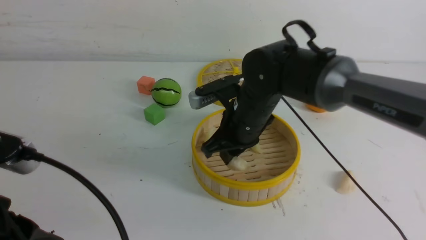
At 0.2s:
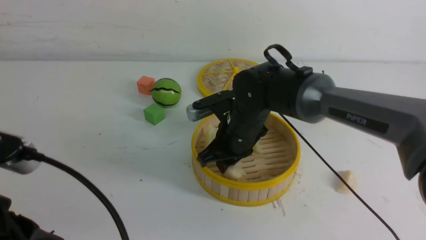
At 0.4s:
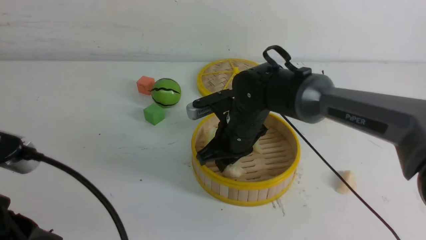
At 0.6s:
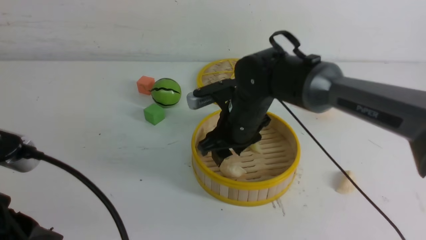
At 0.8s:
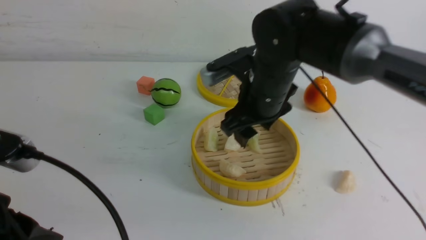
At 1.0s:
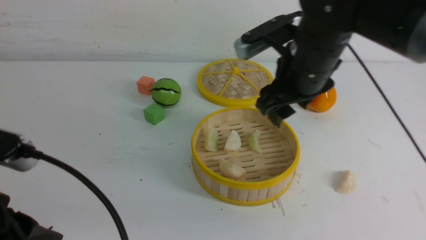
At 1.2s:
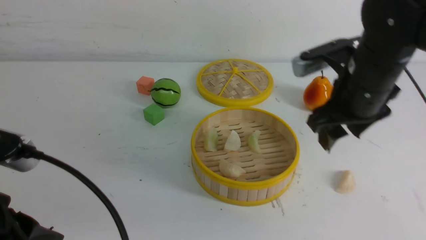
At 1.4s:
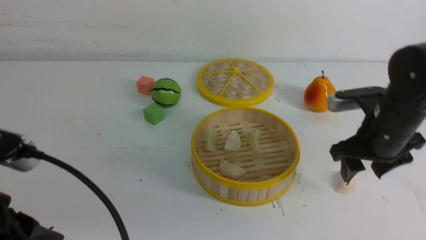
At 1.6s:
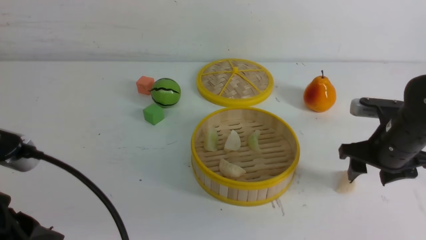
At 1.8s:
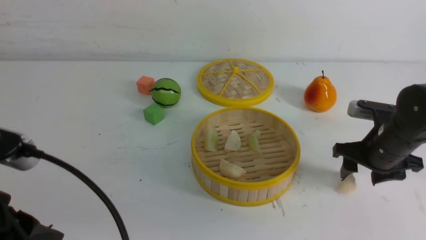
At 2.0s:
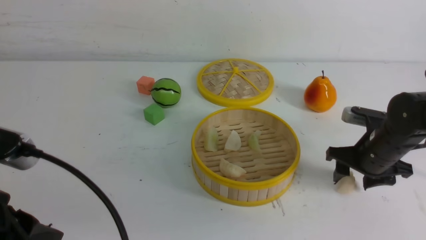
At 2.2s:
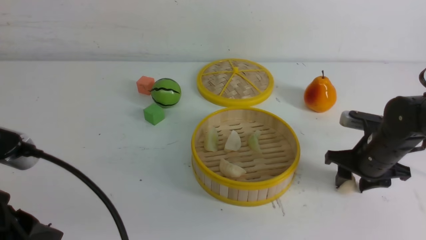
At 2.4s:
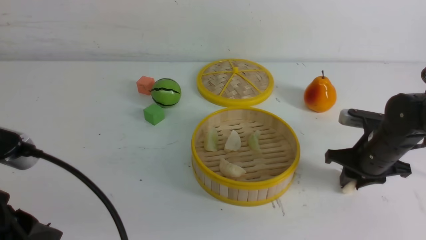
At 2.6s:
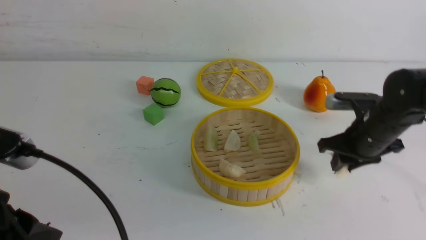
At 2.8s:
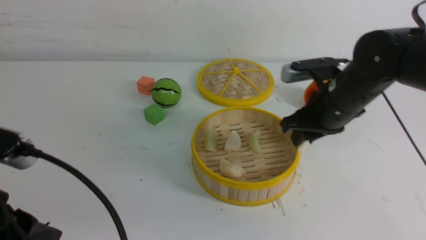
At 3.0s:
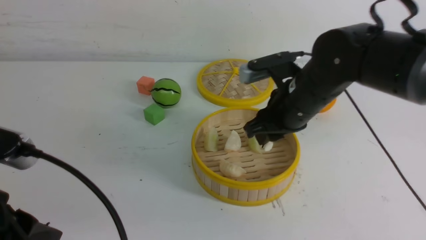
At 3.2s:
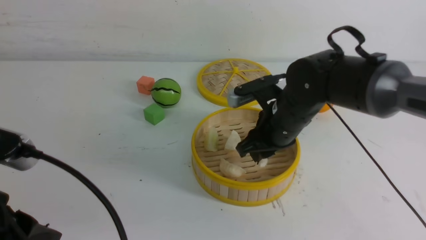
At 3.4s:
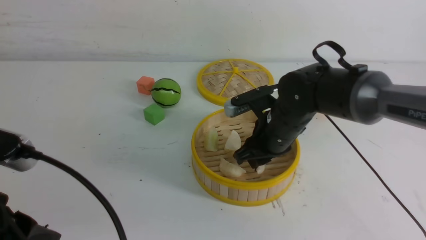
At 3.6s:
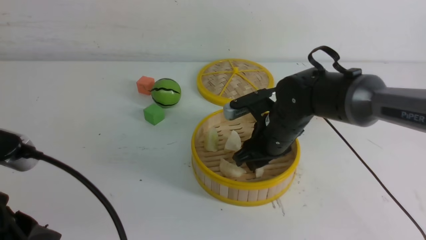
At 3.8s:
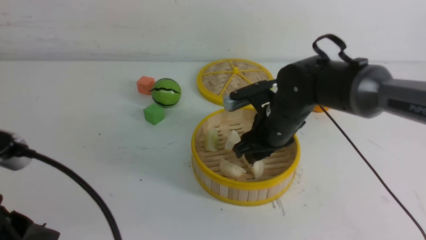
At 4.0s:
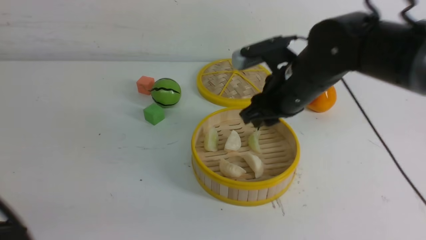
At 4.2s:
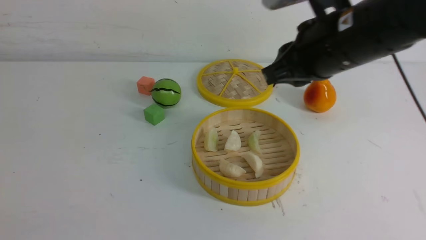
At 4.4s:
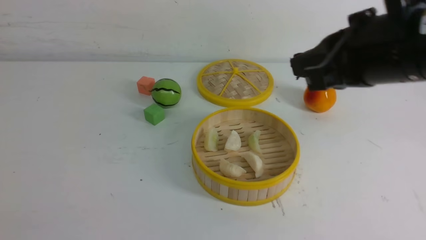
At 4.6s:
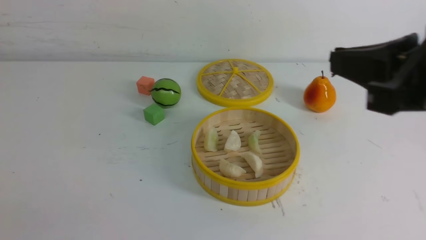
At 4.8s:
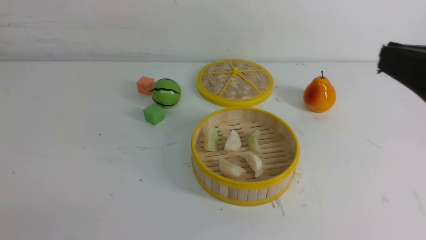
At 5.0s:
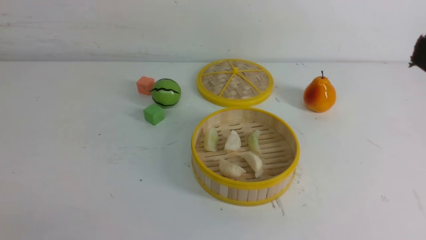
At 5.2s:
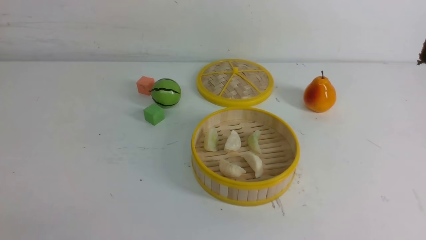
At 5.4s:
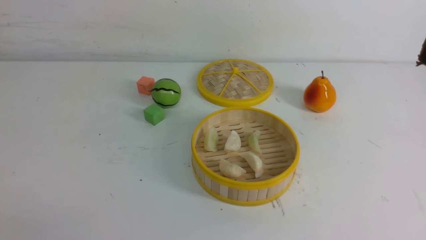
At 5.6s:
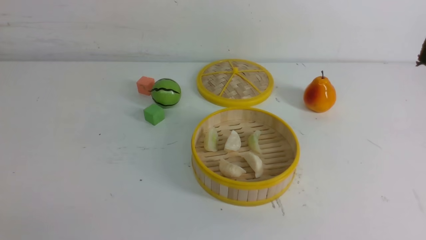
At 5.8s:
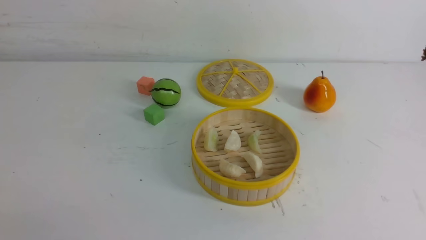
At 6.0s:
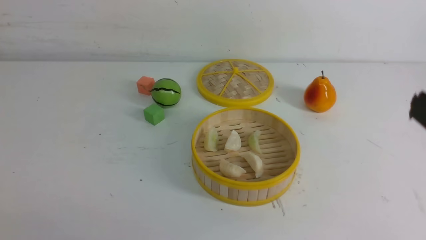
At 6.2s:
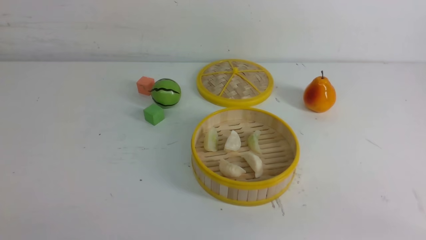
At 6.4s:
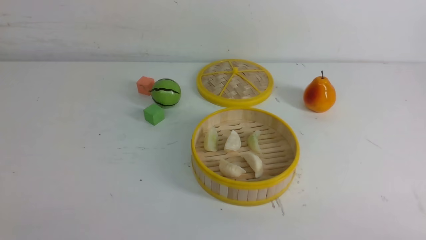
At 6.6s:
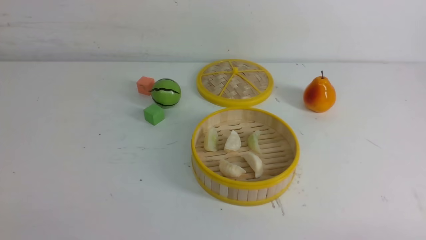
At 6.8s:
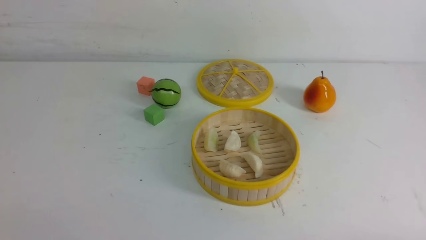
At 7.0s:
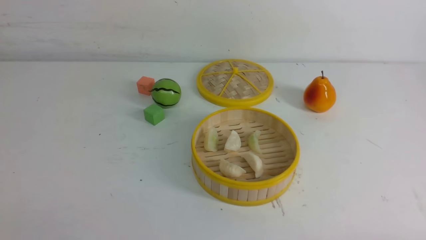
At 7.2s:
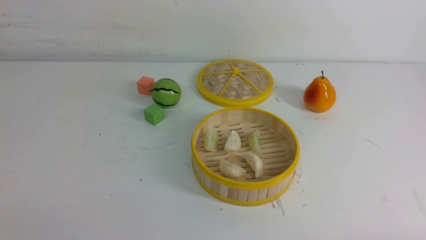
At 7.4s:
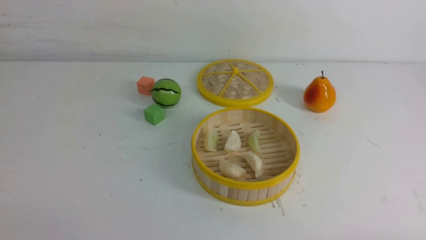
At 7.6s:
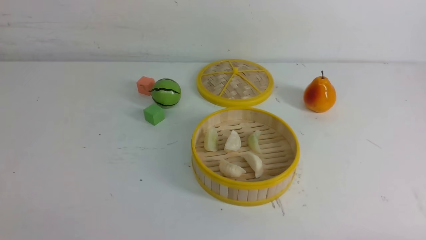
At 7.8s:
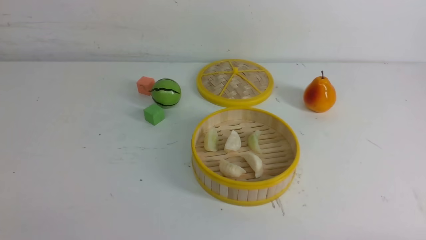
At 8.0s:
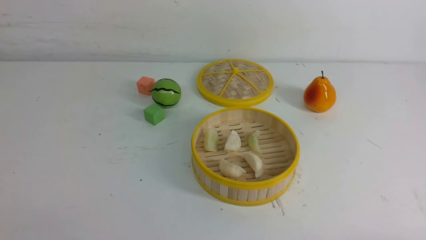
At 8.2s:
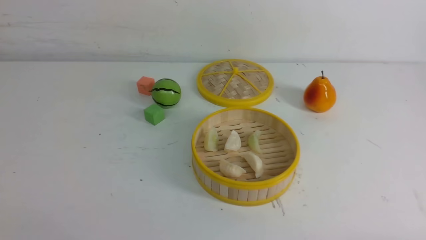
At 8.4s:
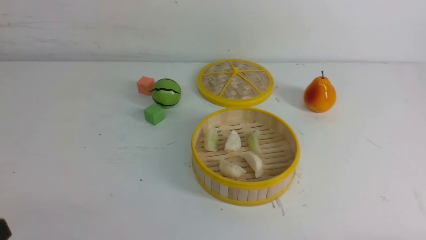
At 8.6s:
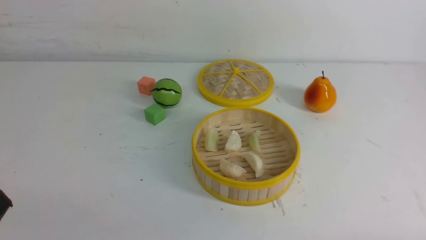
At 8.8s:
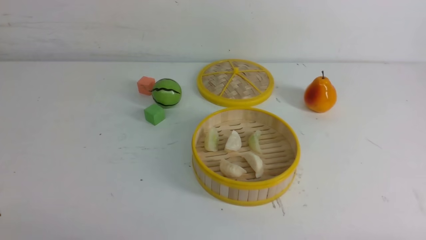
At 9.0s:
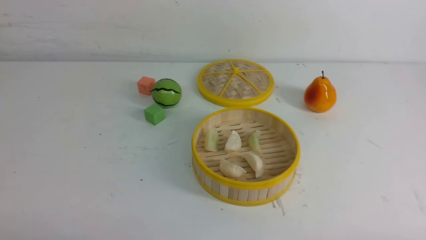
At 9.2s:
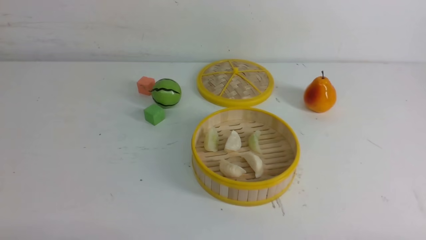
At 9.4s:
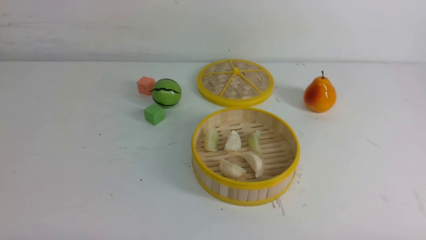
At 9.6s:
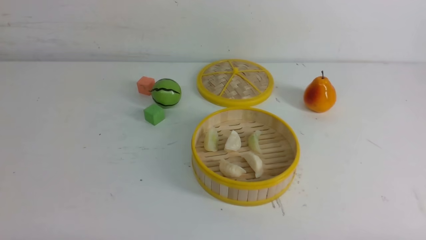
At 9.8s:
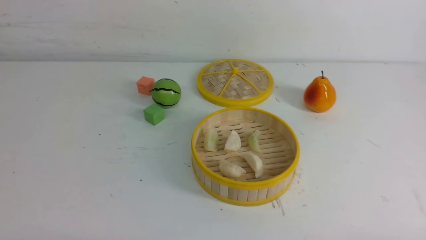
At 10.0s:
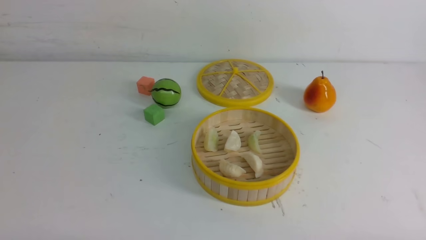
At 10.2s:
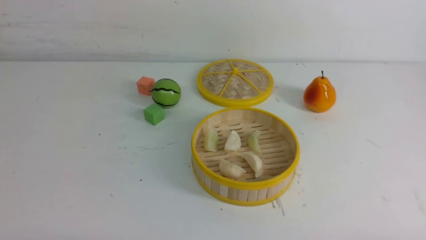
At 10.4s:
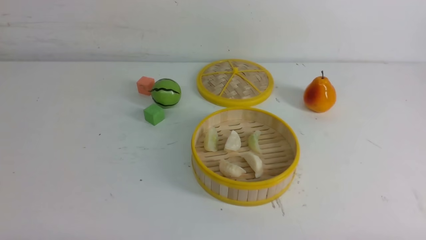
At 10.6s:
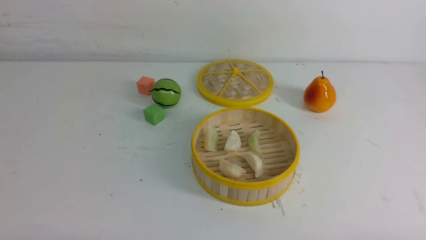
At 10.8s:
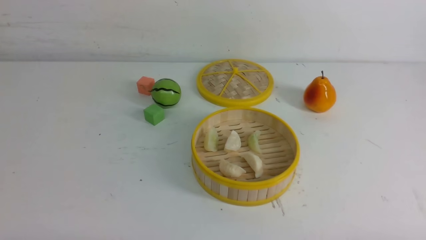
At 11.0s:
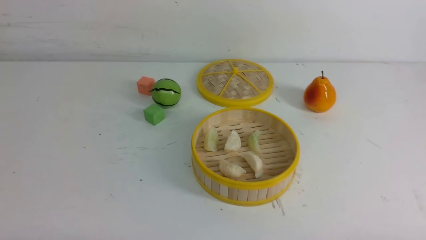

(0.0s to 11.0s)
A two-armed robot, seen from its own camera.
Task of the whole recording: put the dumplings into the steamer on the white table.
Step, 0.6s - 2.4s: use the right arm to grab a dumpling.
Step, 2.6s - 3.8s: use the right arm to put the dumpling into the steamer.
0.0s - 1.6s: The right gripper heads to the right, covering approximately 20 cm, and opens its fingers.
1.6s - 3.2s: The right gripper travels to the left by approximately 15 cm, and closes its fingers.
3.2s - 4.8s: The left gripper travels backward and to the left by approximately 10 cm; the right gripper heads backward, upward and to the right, covering about 30 cm, and closes up.
4.8s - 6.2s: The right gripper shifts roughly 15 cm downward and to the right.
9.4s - 11.0s: The two grippers keep their place.
